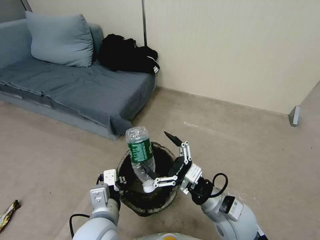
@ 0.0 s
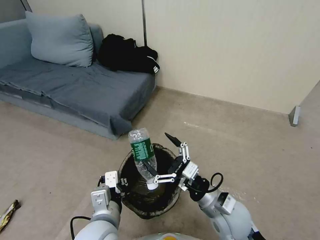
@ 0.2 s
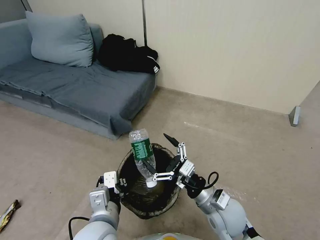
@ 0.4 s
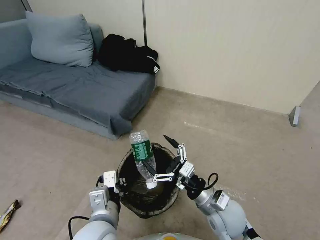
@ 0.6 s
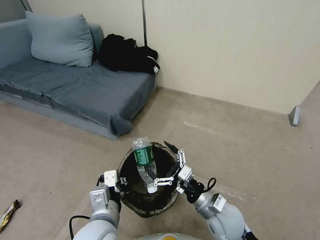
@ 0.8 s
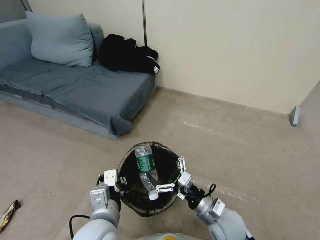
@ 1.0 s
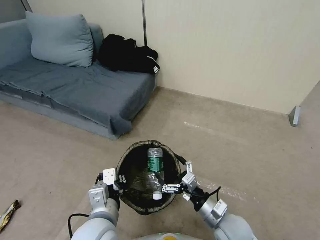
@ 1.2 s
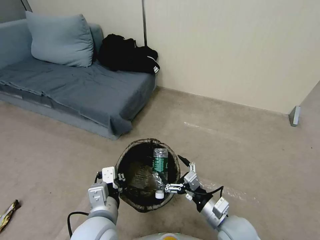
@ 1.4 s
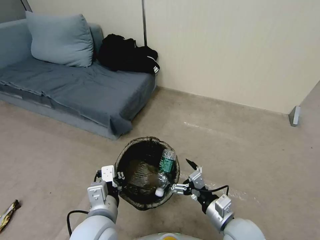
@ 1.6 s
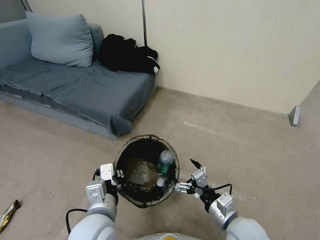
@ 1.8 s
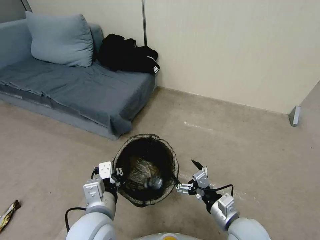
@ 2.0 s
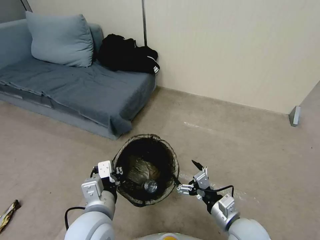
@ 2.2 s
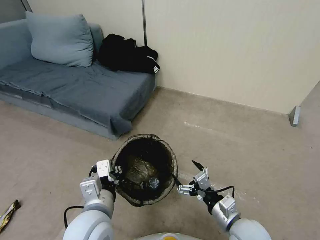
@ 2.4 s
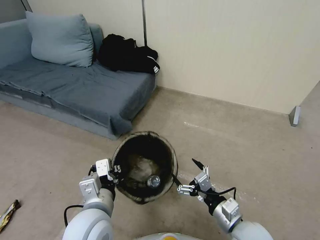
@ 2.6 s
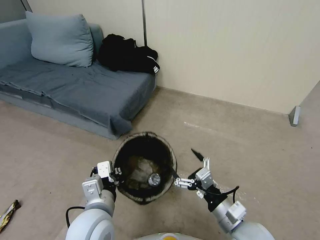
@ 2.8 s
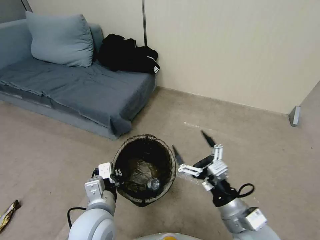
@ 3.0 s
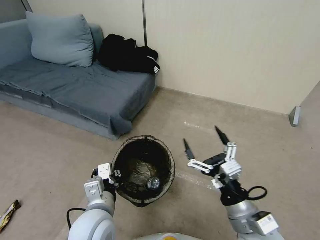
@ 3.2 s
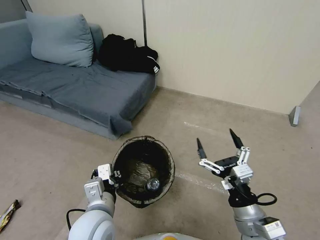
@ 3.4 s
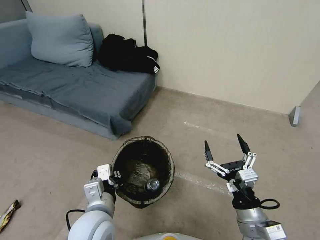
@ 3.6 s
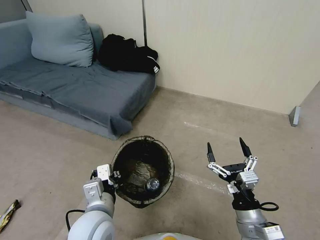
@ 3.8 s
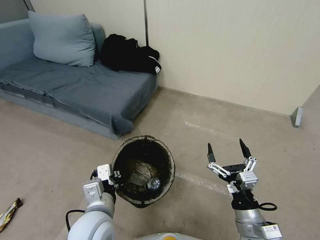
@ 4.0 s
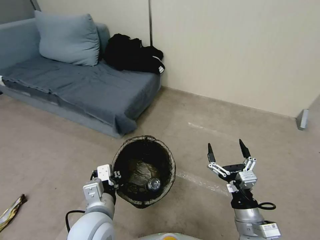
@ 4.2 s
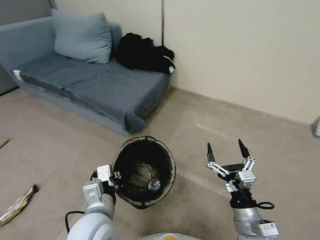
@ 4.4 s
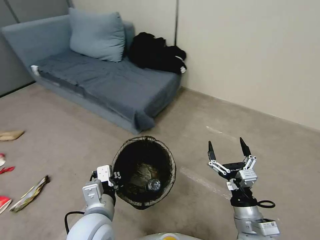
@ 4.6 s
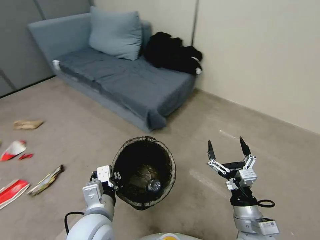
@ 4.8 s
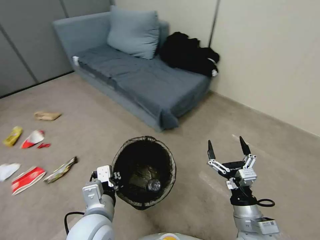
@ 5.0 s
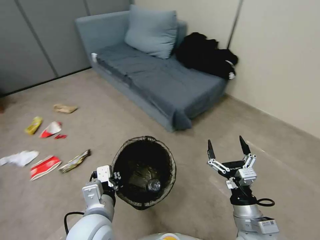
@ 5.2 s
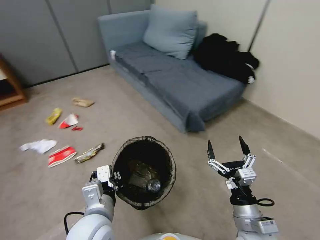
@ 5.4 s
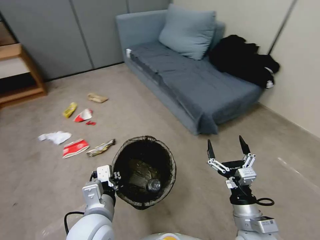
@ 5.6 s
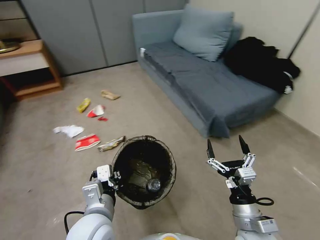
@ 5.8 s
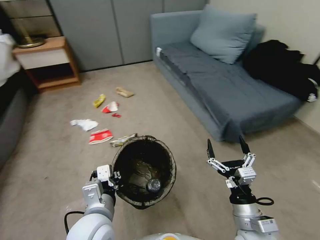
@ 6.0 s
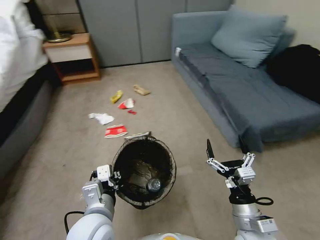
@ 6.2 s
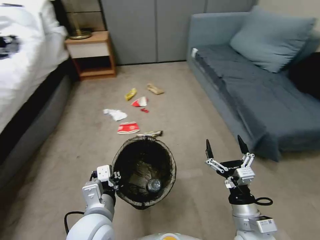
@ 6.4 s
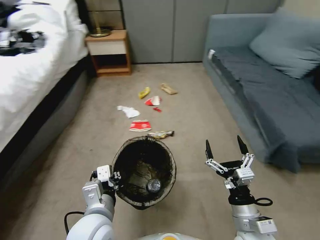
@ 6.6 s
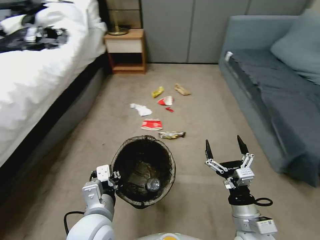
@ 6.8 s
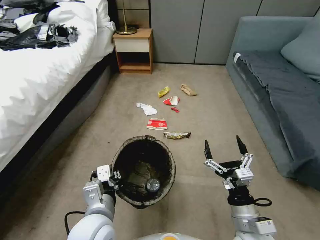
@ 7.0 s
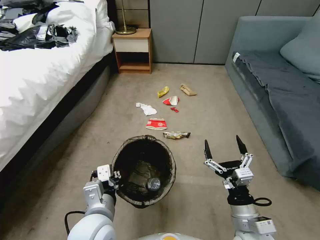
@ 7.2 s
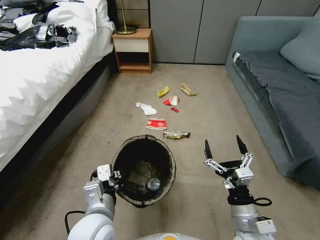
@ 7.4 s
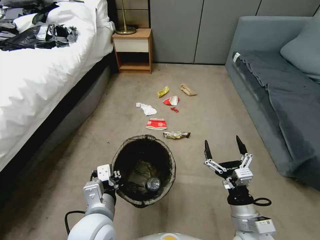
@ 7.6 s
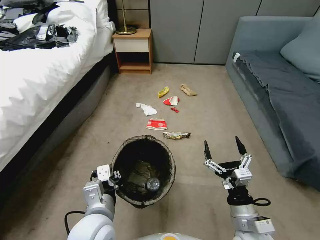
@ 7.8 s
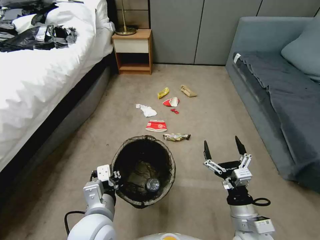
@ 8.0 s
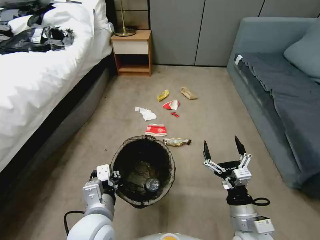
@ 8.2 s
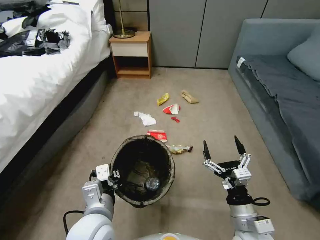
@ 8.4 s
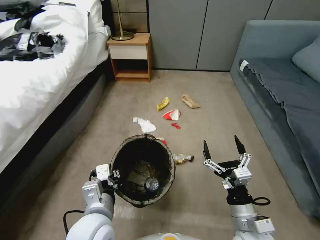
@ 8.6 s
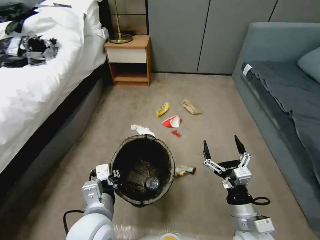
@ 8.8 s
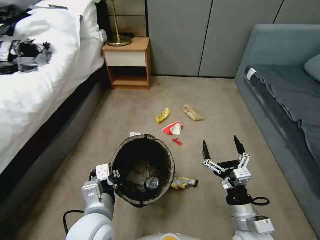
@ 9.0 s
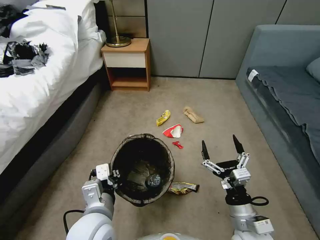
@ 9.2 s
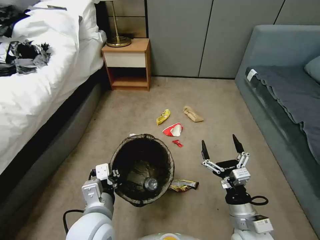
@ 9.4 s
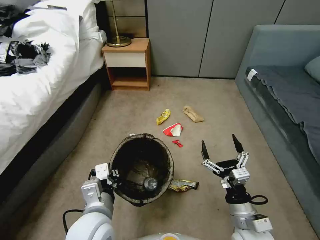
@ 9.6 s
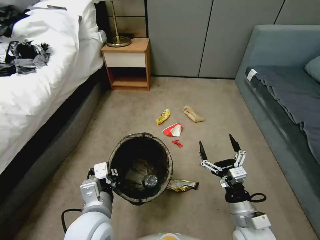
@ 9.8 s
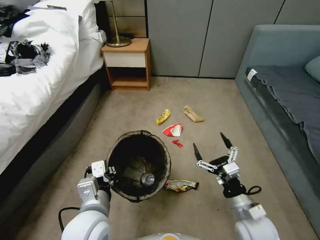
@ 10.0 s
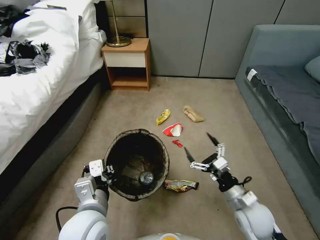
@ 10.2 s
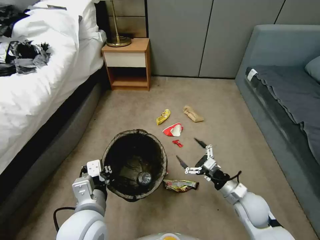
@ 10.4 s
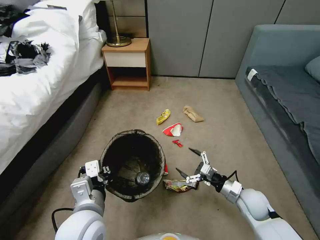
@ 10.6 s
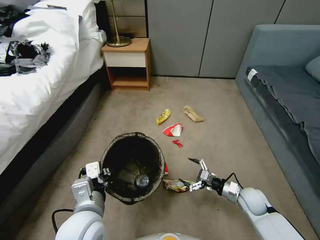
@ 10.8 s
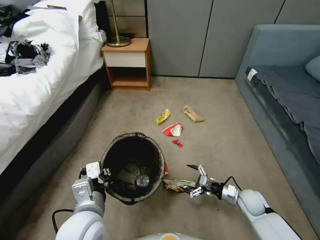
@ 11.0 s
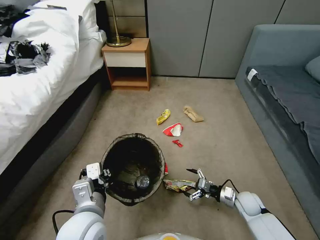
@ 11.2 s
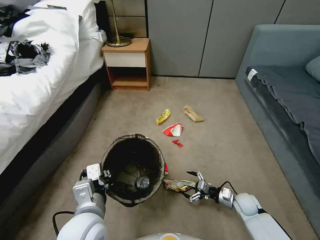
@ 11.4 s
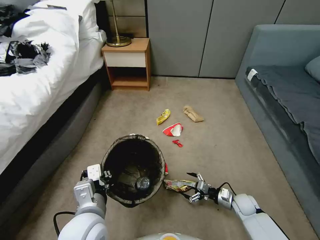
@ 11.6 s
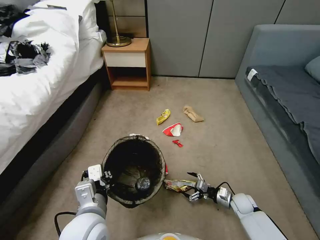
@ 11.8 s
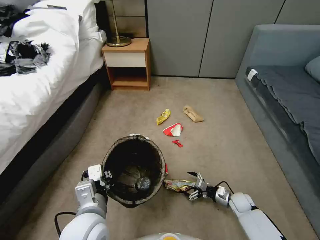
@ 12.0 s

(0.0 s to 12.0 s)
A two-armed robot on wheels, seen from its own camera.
Task of the whole recording: Pick up the trash bin, then pick up the garbage from the floor and place it into the trash bin.
0.0 s - 1.6 s: The right gripper shifts by approximately 5 cm.
1.6 s - 3.0 s: The right gripper heads upward, covering approximately 5 cm.
3.0 s - 4.4 s: The right gripper heads downward, covering roughly 5 cm.
9.0 s - 10.4 s: The right gripper shifts some 15 cm forward, to the right and downward.
10.4 s - 12.0 s: The right gripper goes about 20 cm downward.

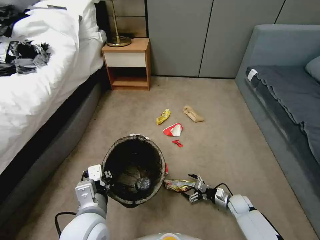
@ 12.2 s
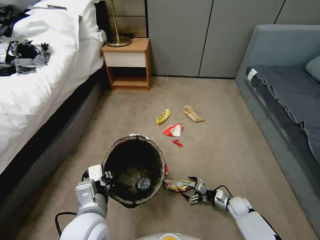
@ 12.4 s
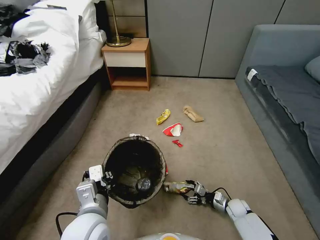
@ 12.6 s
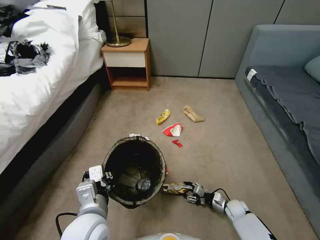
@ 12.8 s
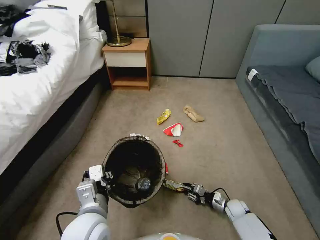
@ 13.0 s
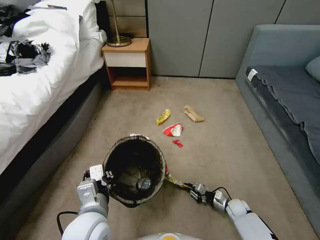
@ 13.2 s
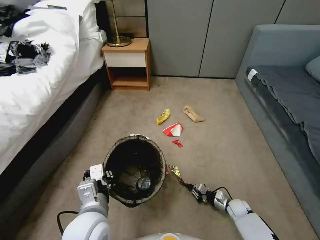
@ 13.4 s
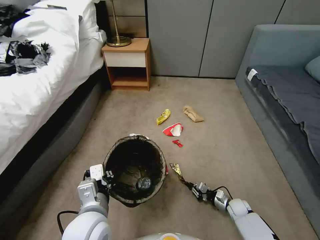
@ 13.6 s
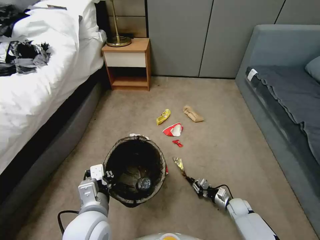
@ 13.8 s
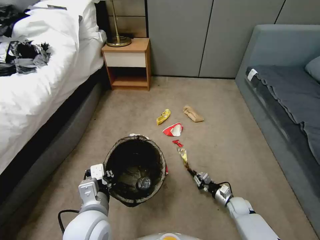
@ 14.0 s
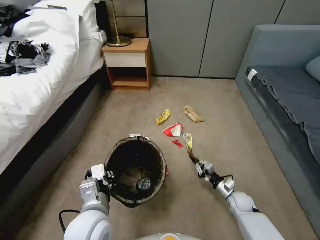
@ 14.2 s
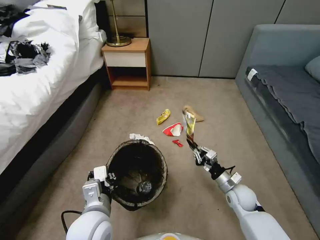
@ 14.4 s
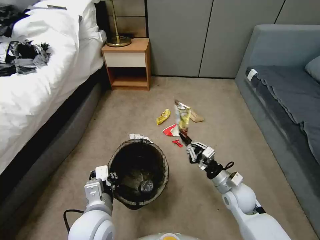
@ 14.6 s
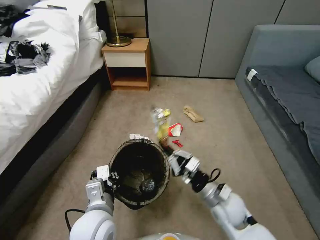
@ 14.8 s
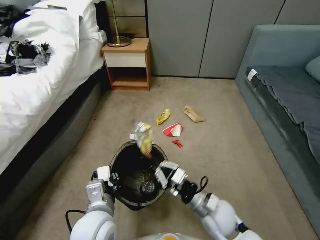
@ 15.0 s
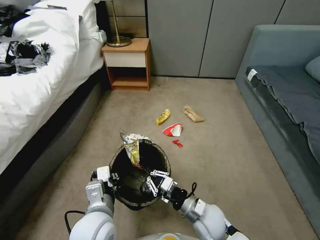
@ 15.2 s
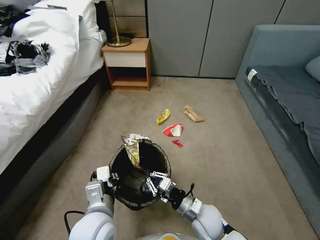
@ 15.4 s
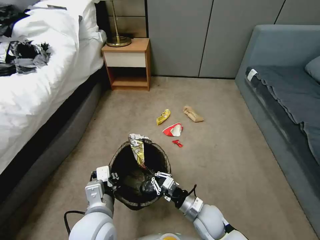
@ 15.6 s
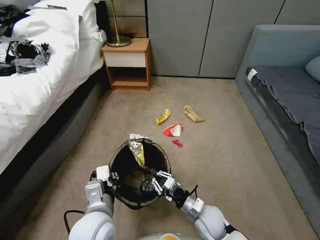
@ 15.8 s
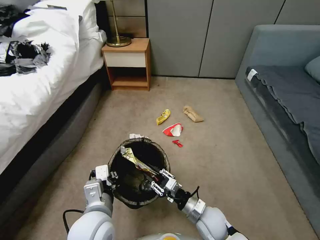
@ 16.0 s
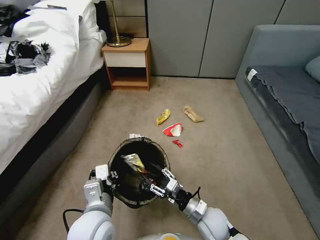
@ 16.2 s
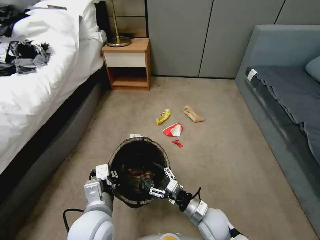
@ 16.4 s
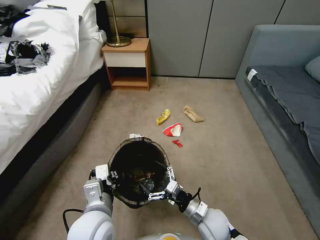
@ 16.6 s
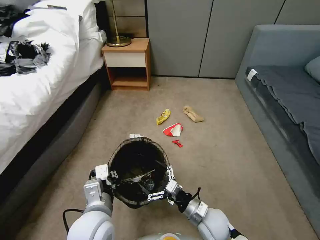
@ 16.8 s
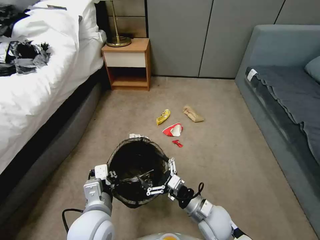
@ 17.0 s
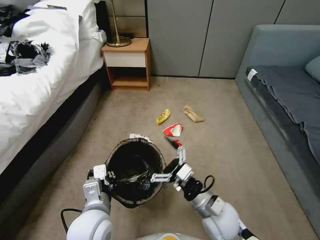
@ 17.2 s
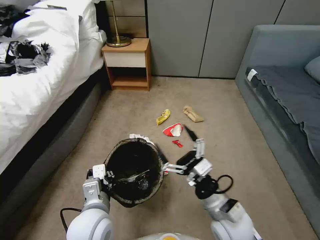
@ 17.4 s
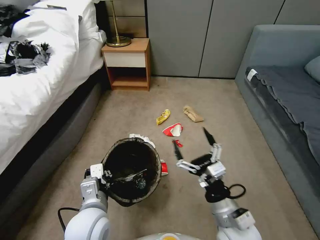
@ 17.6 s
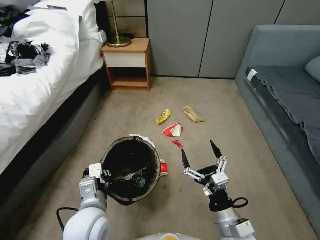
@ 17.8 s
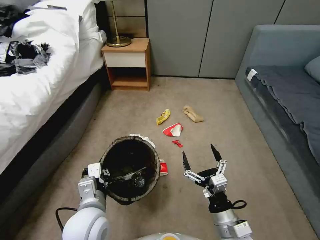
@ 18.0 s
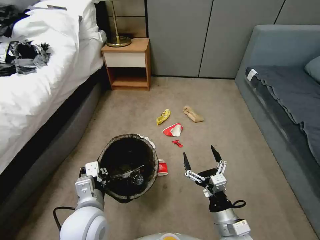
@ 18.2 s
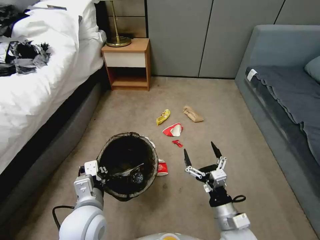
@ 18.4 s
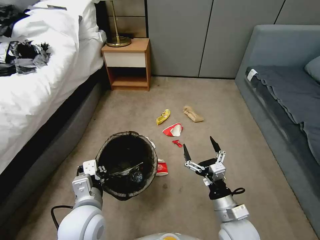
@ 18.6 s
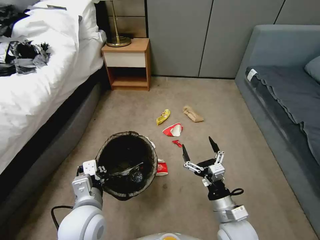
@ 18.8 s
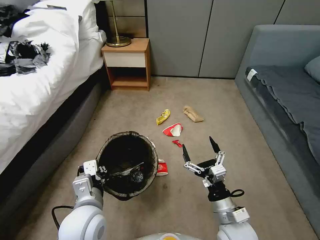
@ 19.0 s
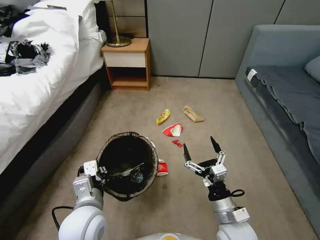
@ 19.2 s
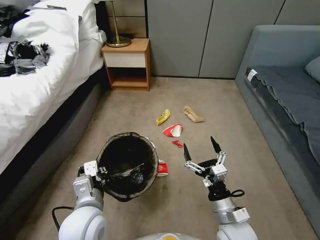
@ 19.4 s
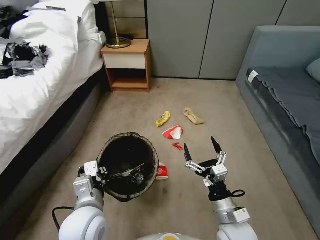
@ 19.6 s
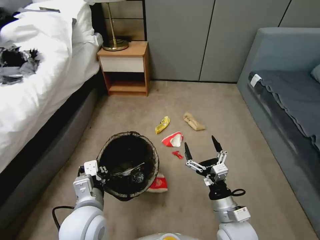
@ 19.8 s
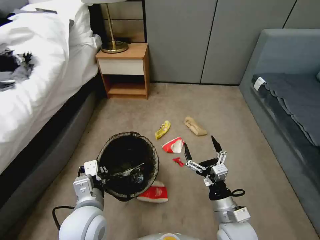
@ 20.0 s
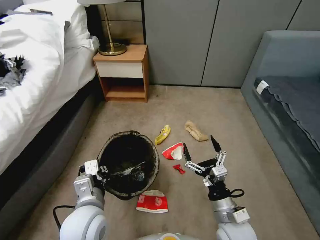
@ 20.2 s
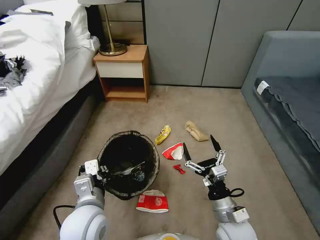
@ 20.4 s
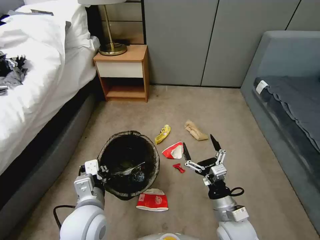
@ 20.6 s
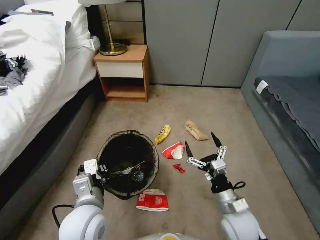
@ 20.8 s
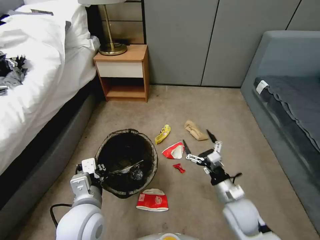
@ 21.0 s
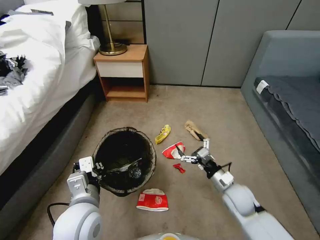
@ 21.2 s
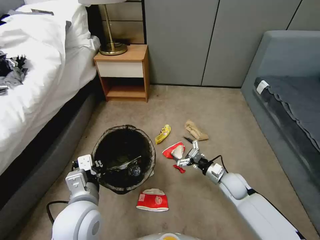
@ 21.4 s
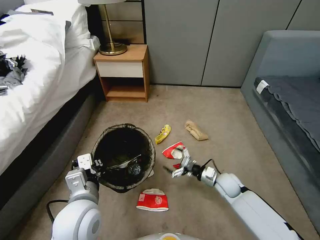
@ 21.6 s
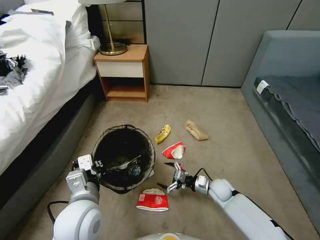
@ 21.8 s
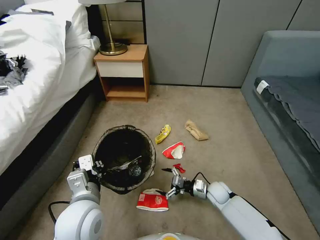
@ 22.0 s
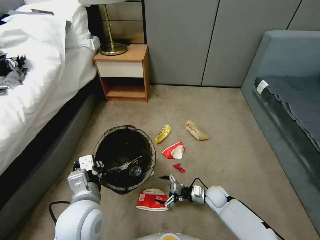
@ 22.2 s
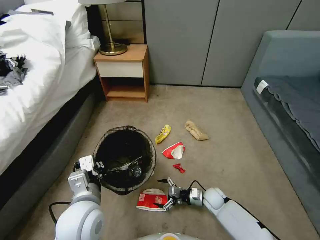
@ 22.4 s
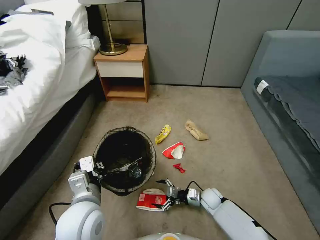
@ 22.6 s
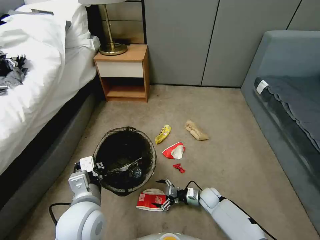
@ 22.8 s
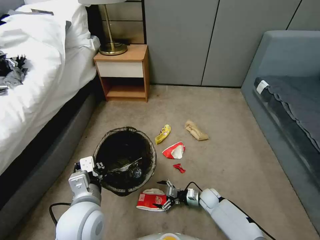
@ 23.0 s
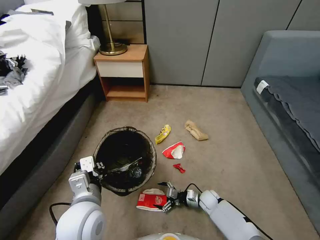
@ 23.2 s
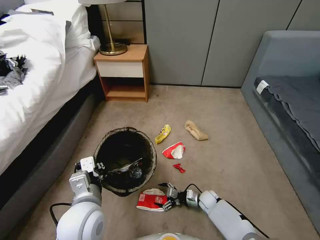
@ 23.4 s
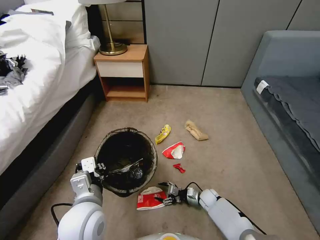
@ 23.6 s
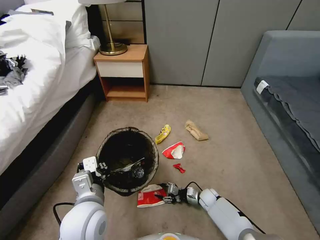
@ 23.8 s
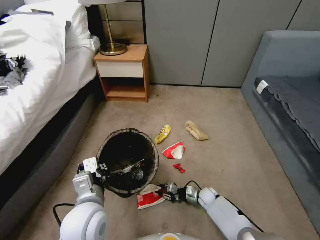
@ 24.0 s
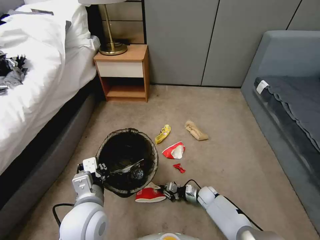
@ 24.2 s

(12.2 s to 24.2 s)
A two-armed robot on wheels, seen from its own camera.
Task of the whole recording: Pick up the trash bin, then pick up the garbage from the floor and place it into the trash bin.
12.2 s - 13.8 s: The right gripper closes.
13.8 s - 15.2 s: The right gripper goes some 30 cm upward and to the left.
15.2 s - 16.6 s: The right gripper opens.
16.6 s - 18.2 s: The right gripper travels upward and backward by roughly 10 cm.
18.2 s - 19.8 s: The grippers move only a little.
19.8 s - 21.2 s: The right gripper goes about 10 cm forward and to the right.
21.2 s - 22.6 s: The right gripper travels downward by roughly 15 cm.
22.6 s - 24.2 s: The right gripper closes.
